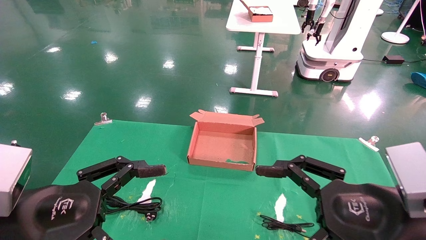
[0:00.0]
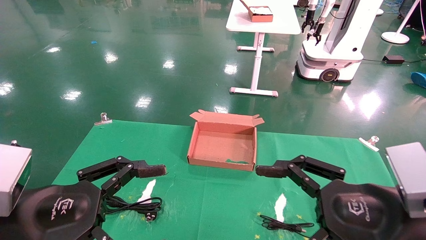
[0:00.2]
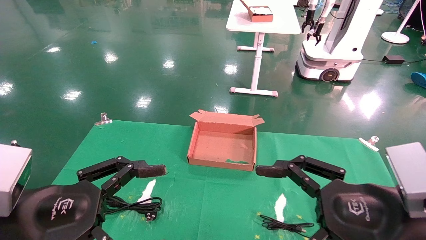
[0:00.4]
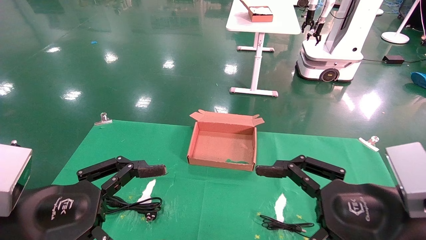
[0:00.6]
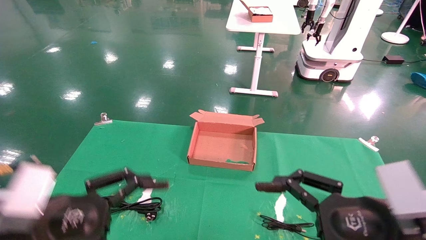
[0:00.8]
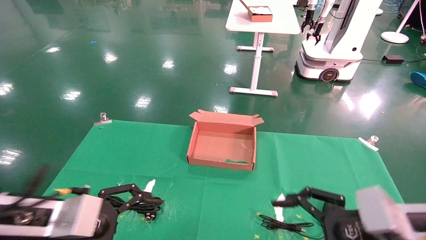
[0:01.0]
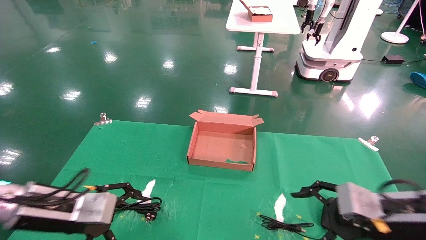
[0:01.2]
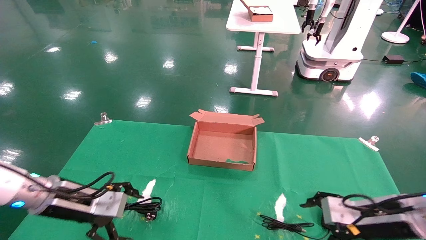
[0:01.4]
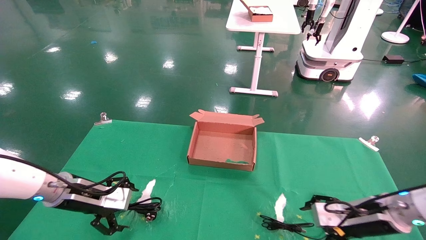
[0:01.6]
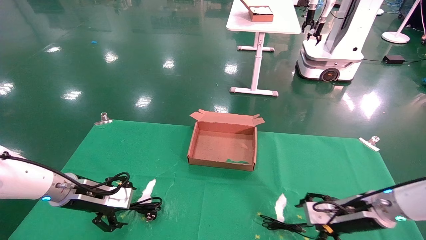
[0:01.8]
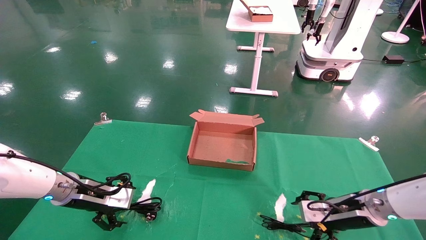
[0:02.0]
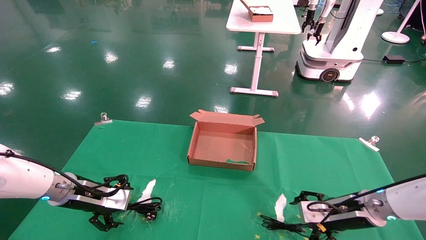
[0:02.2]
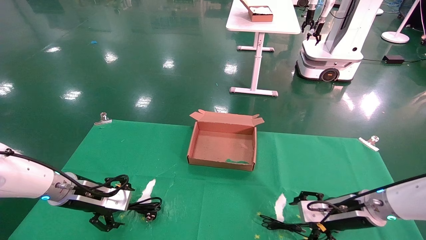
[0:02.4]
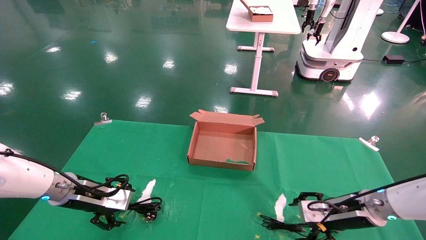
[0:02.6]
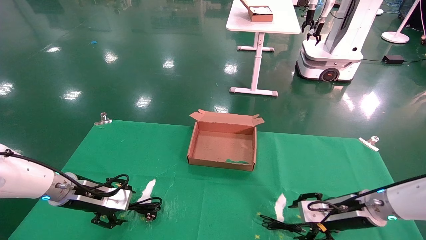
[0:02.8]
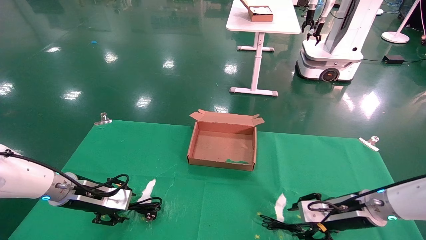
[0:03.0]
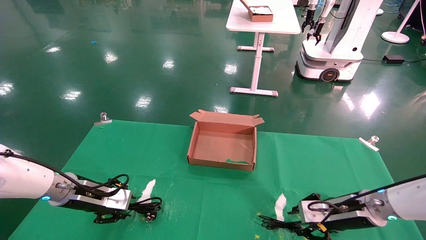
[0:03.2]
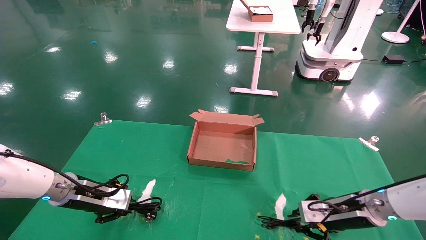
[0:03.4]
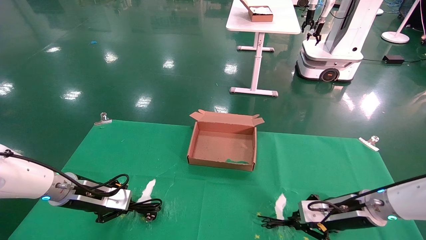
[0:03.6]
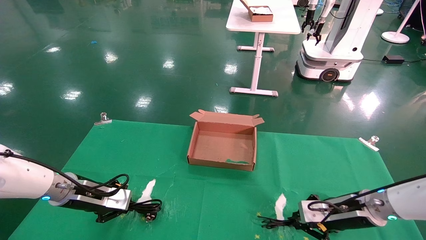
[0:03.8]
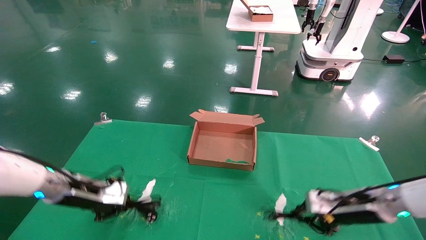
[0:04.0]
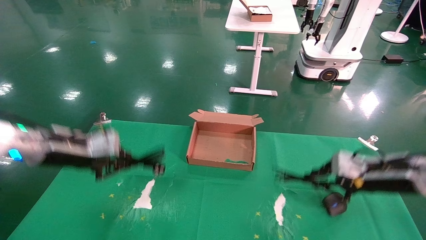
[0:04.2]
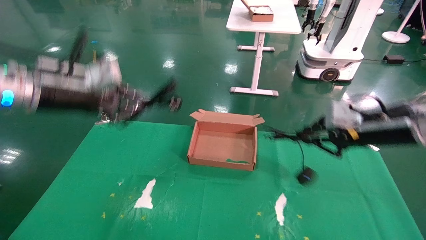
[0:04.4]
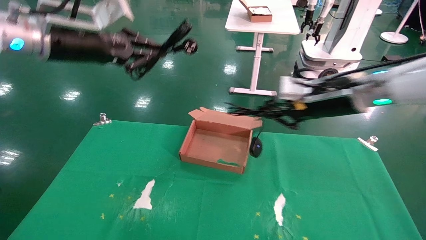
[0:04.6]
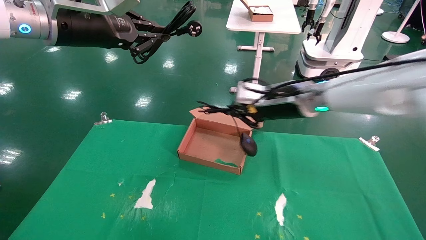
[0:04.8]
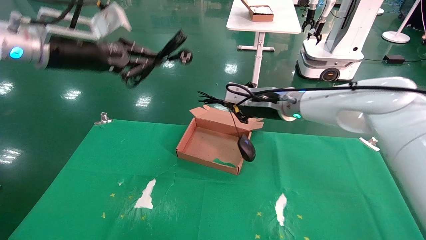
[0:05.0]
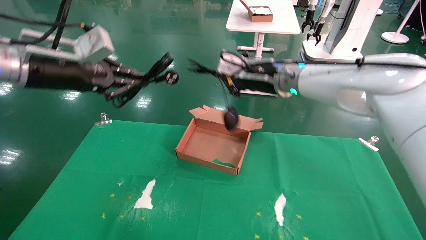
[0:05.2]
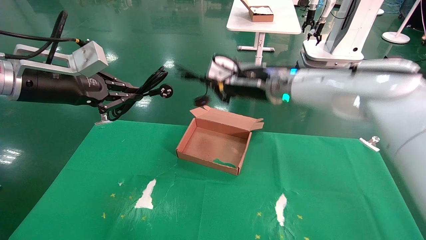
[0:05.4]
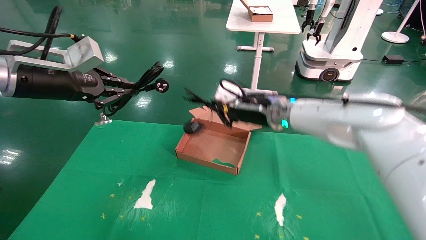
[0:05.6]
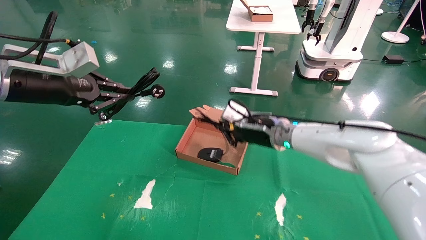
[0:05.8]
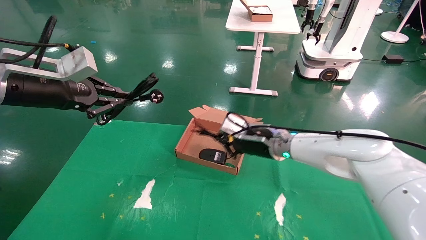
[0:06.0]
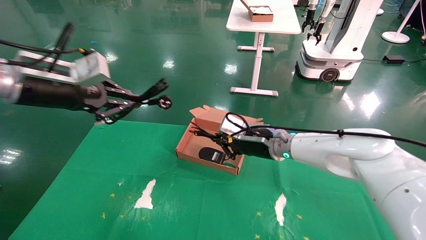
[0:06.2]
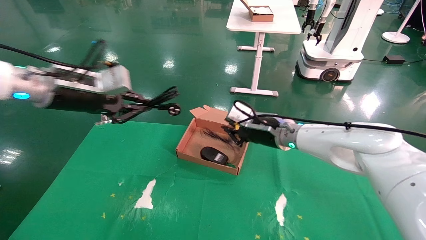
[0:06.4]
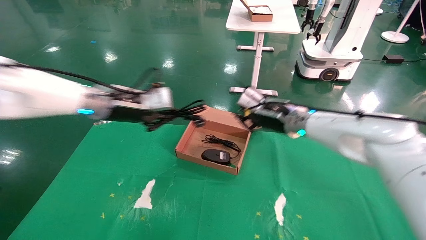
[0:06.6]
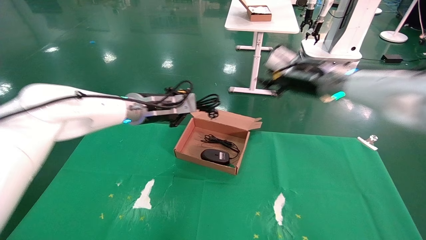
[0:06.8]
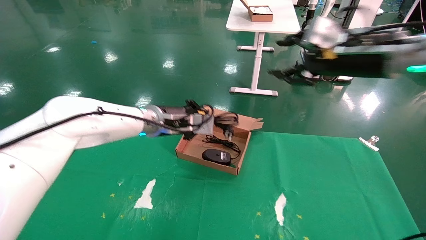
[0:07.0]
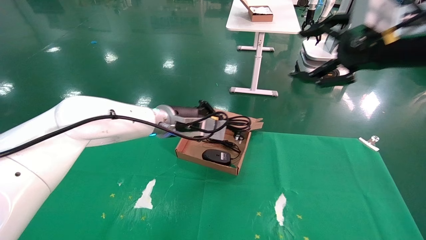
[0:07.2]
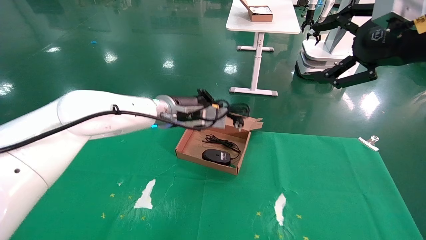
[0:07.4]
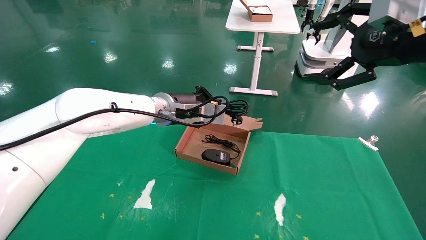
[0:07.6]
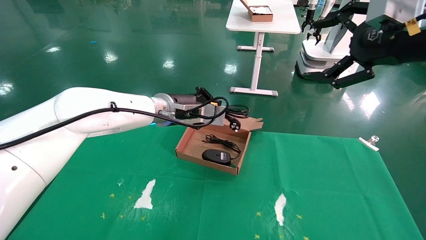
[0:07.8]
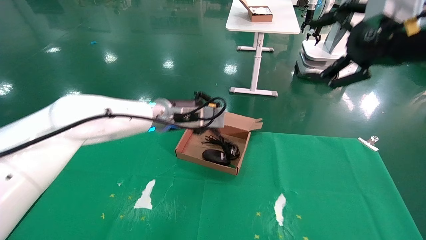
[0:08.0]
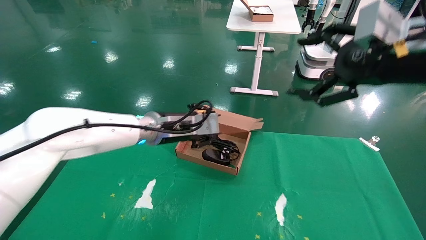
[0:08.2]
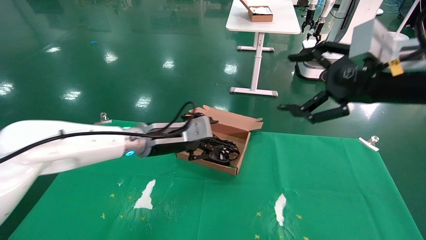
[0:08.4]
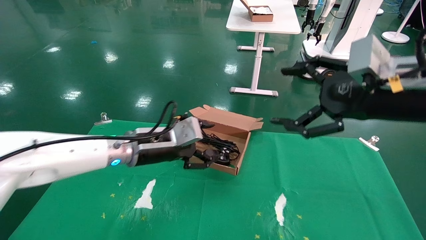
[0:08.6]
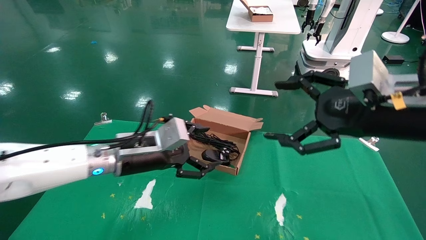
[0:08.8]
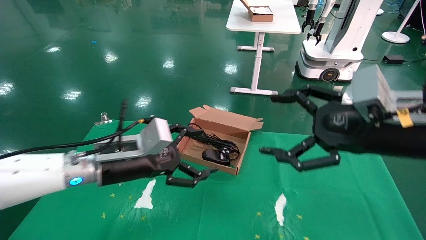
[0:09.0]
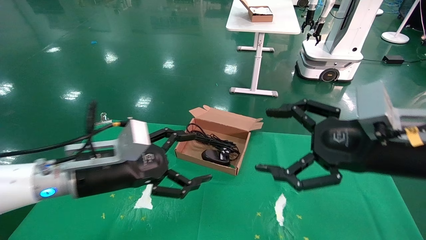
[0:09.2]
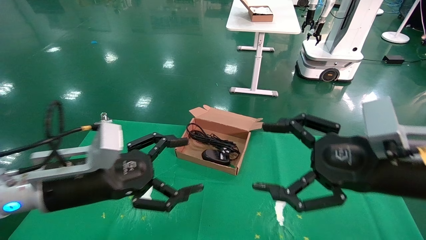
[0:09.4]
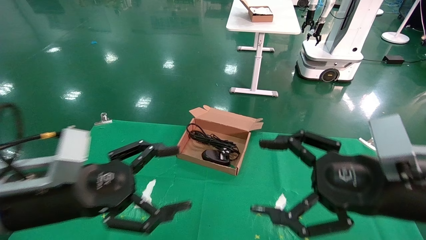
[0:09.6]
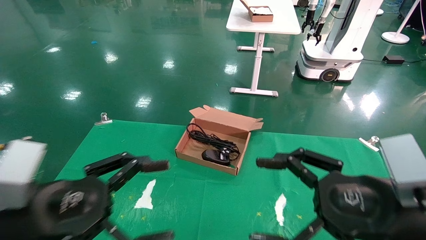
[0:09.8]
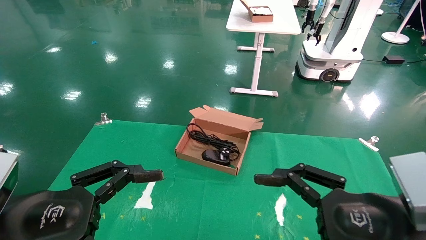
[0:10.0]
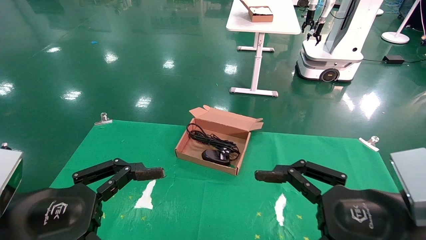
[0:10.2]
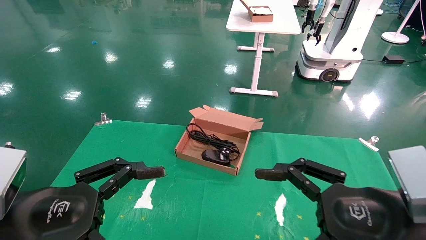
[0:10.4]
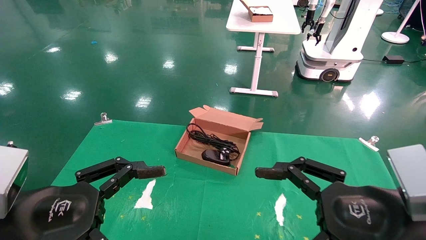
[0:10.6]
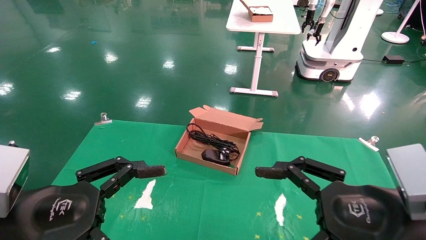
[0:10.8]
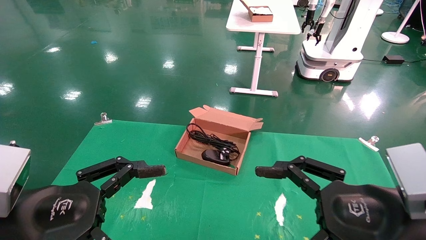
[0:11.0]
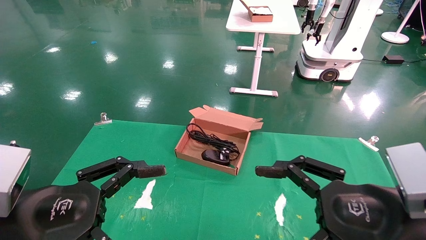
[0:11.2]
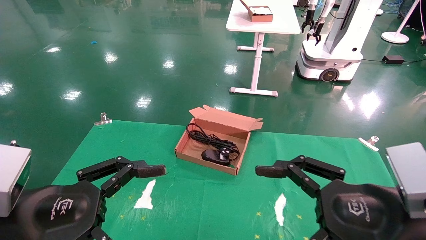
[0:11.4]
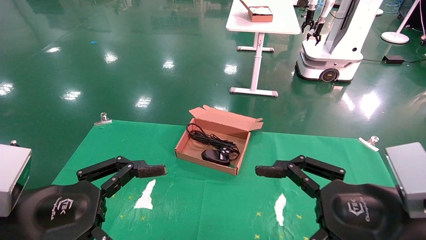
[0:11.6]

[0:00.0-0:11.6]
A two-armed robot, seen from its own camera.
Step, 0:01.0 to 0:03.6: Grab and lift both the mouse and power cord from the accessory packaging area at the same time.
Step, 0:03.8 to 0:08.4: Place the mouse and power cord into the box.
0:00.0 to 0:01.4: The right gripper moves forward, downward and to the right, some 20 cm. The left gripper goes approximately 15 cm forward.
0:01.4 to 0:02.8: Both grippers travel together forward, roughly 5 cm.
0:02.8 to 0:04.4: Both grippers move upward, some 20 cm. The right gripper closes. Meanwhile the left gripper closes.
0:04.4 to 0:05.8: The right gripper goes approximately 20 cm to the left and forward. Meanwhile the left gripper moves about 10 cm upward and comes back.
0:05.8 to 0:07.2: The right gripper heads upward, to the right and backward, covering some 30 cm, and opens. Meanwhile the left gripper travels to the right, forward and downward by approximately 25 cm.
0:07.2 to 0:08.8: The left gripper goes approximately 15 cm backward, to the left and downward, and opens its fingers, while the right gripper goes about 10 cm downward, and opens its fingers.
0:08.8 to 0:10.2: The right gripper shifts approximately 15 cm downward and backward, while the left gripper shifts some 20 cm backward and to the left.
0:10.2 to 0:11.6: Neither gripper changes place.
